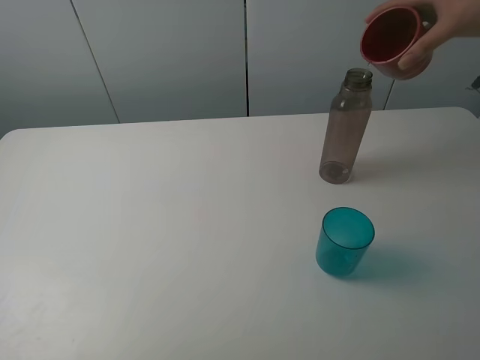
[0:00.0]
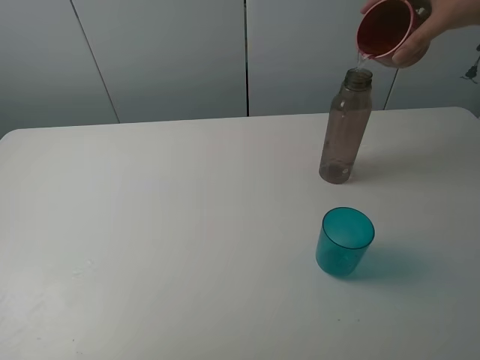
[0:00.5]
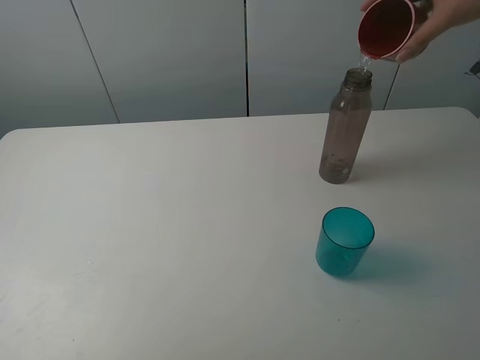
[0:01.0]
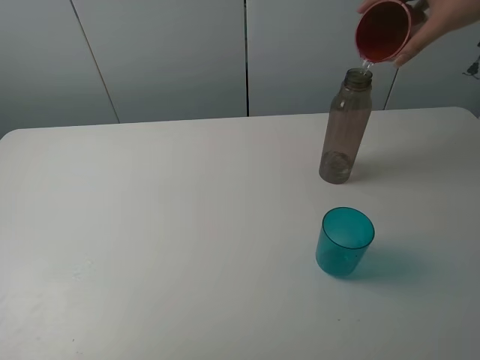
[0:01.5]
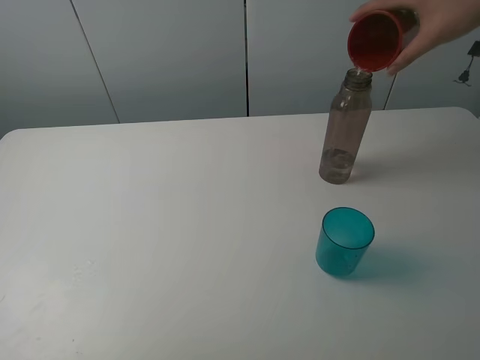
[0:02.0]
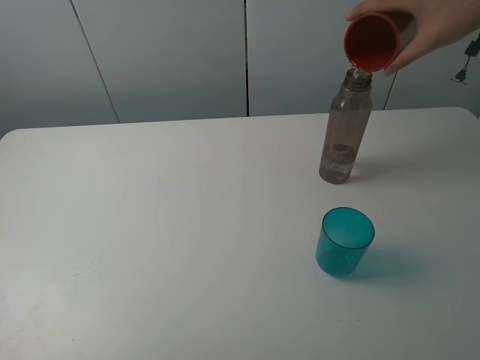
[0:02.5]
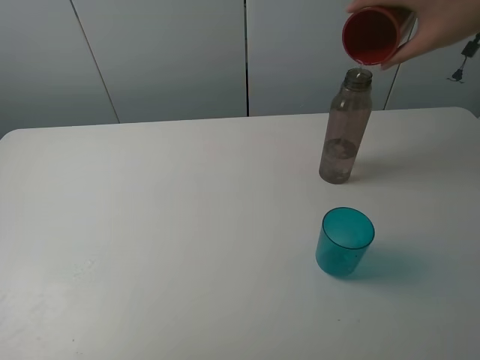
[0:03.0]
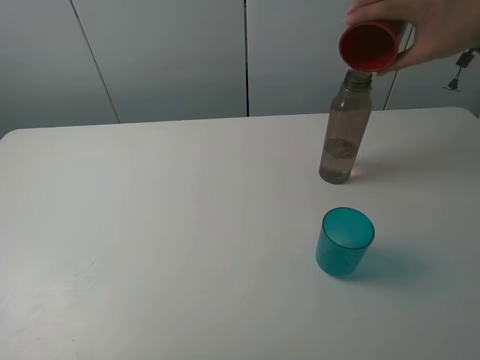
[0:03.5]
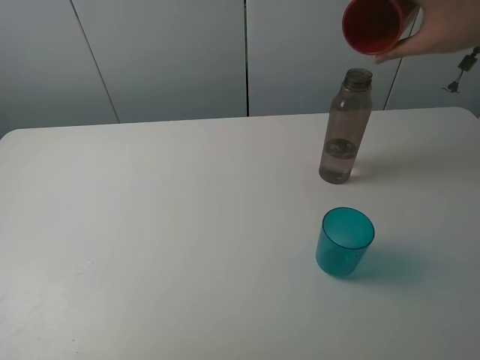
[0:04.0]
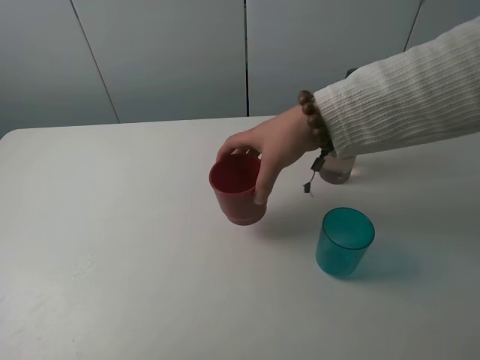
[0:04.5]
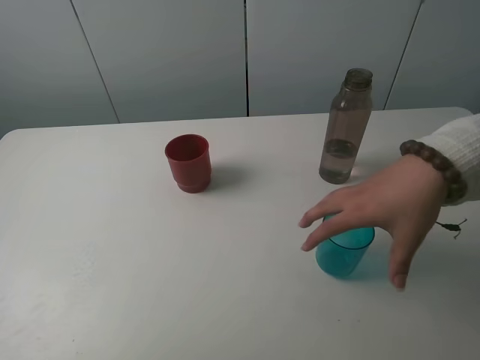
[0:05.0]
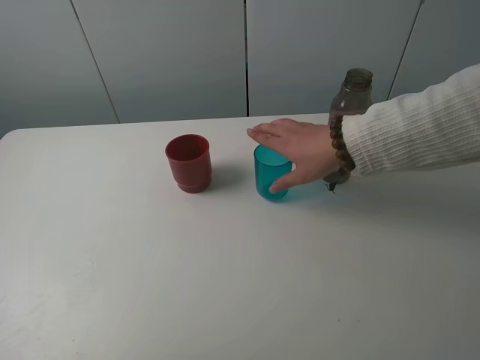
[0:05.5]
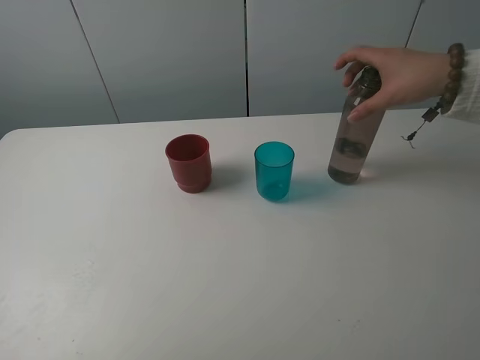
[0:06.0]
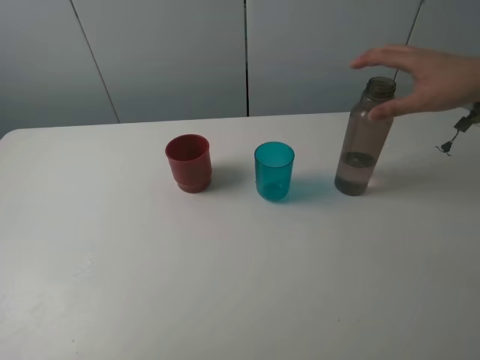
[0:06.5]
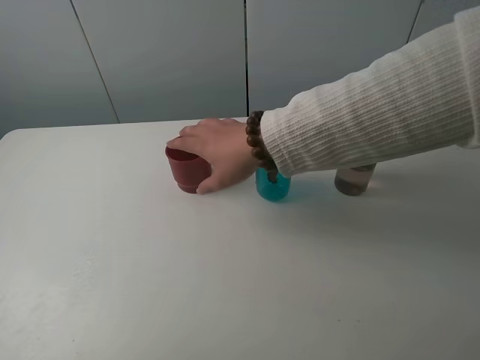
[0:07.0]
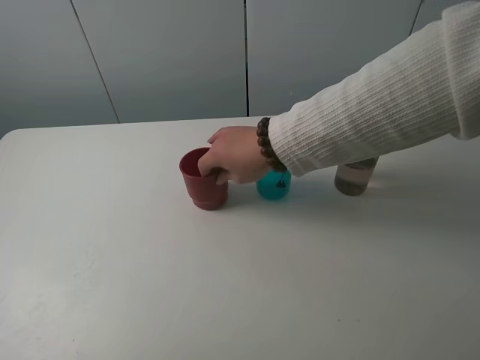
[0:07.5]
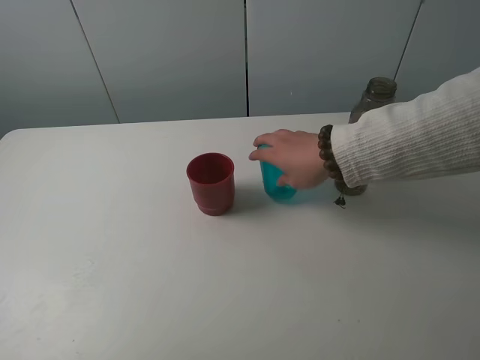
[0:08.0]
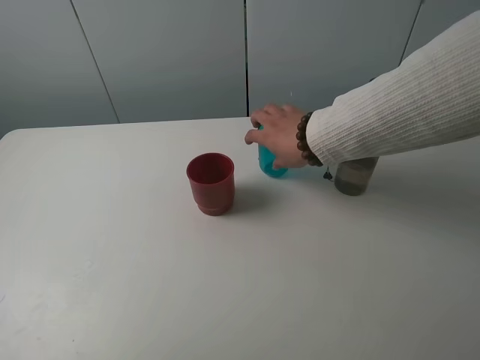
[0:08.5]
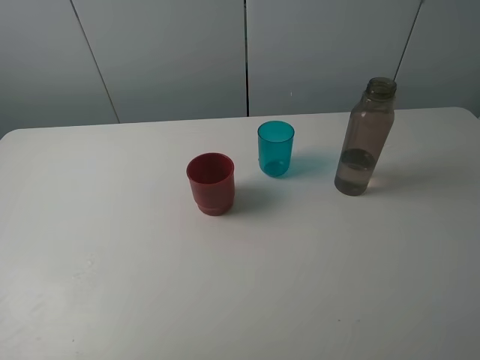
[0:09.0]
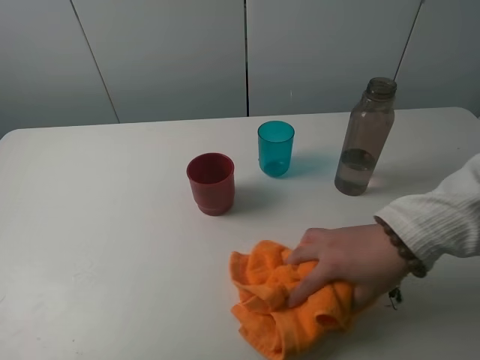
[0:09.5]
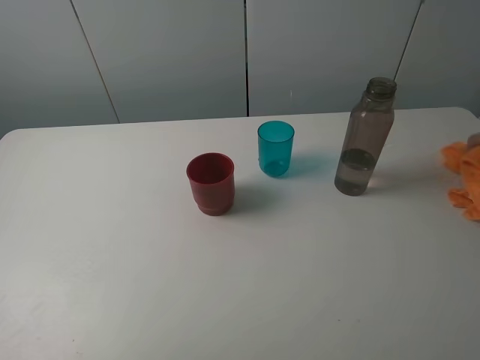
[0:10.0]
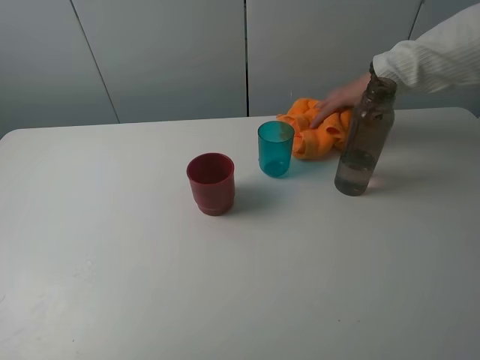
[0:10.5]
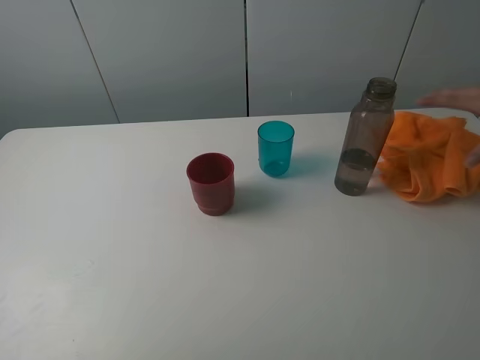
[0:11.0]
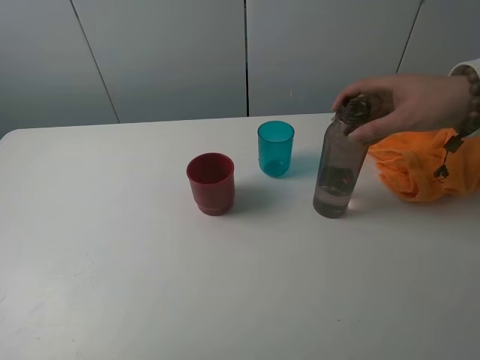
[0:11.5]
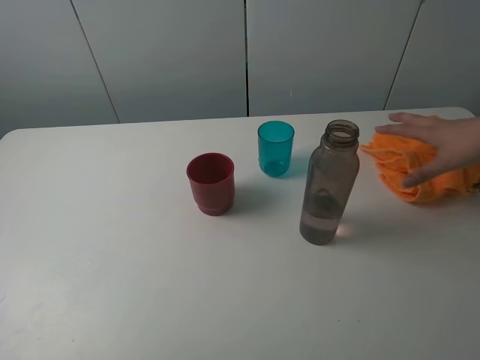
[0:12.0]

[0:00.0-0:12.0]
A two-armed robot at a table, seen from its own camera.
Task of the whole recording: pick up the bottle and pour water into the cup, then pick up the cup containing water and pour it into another cup.
0:00.0 to 0:12.0: Neither gripper changes place.

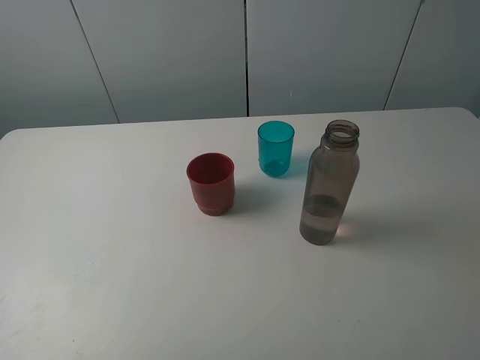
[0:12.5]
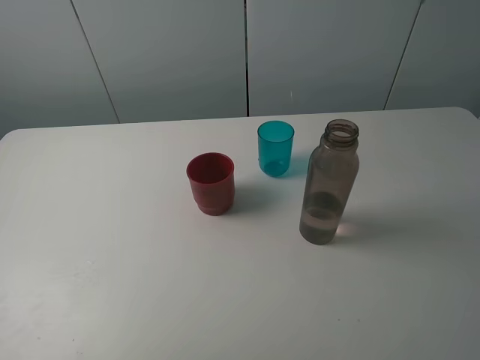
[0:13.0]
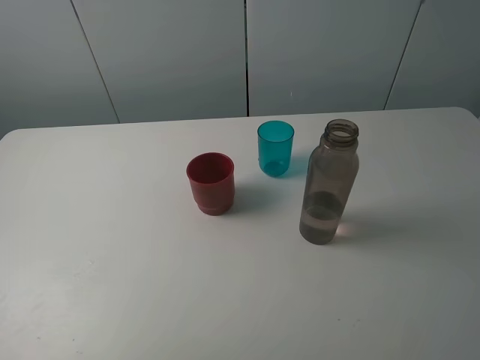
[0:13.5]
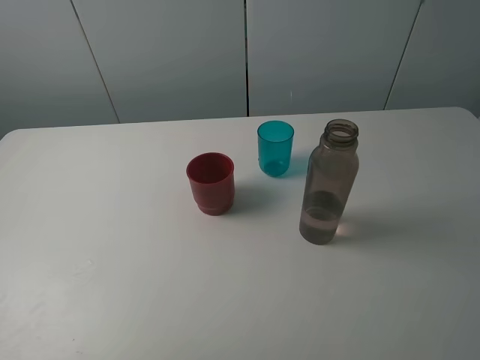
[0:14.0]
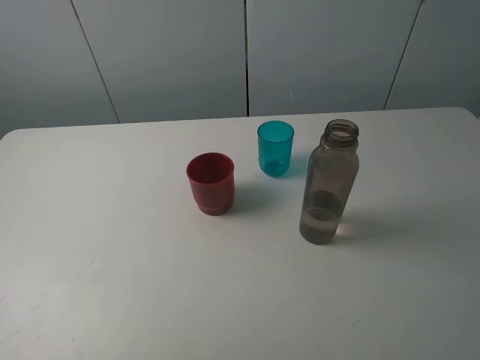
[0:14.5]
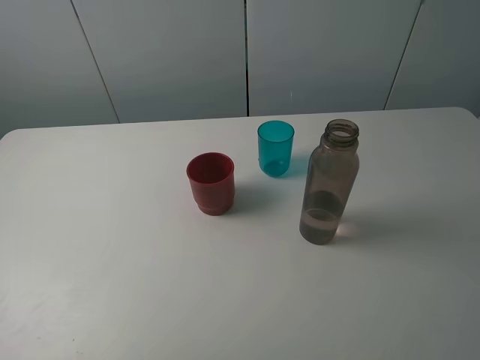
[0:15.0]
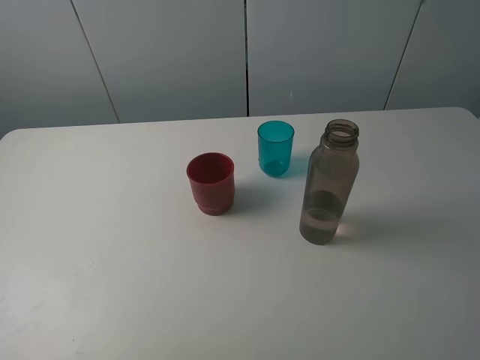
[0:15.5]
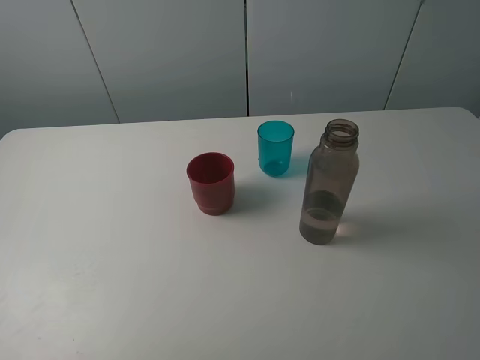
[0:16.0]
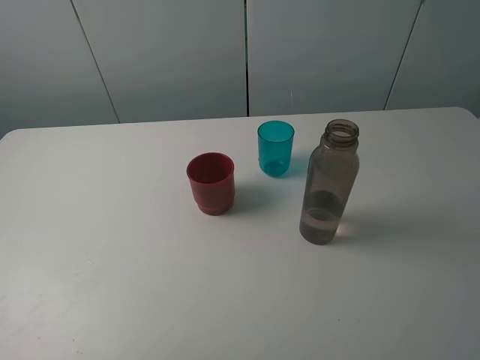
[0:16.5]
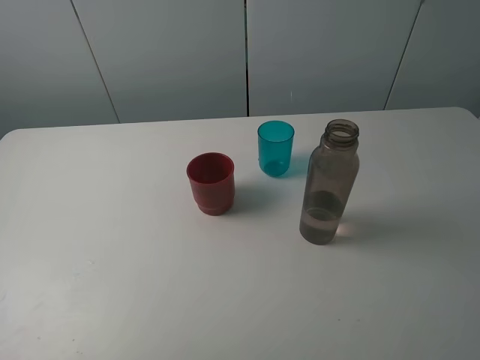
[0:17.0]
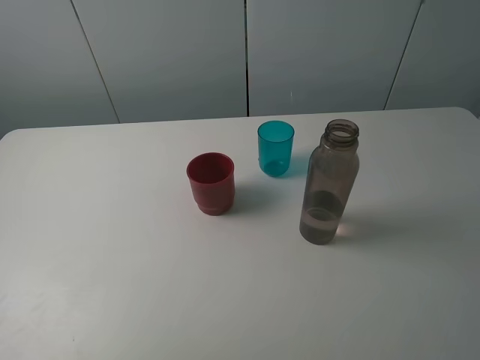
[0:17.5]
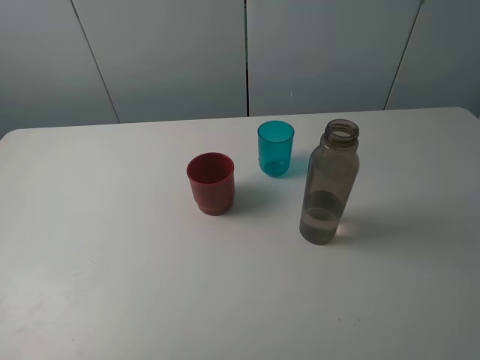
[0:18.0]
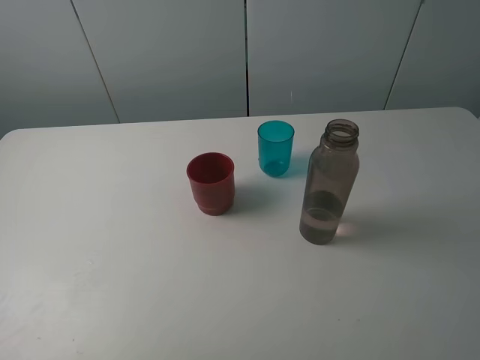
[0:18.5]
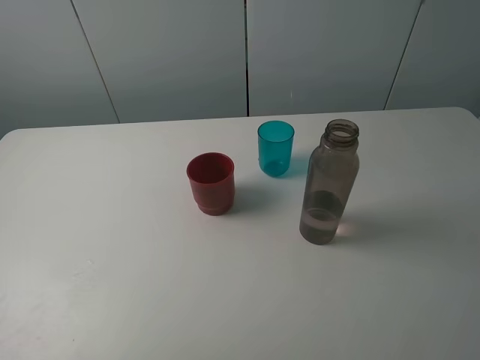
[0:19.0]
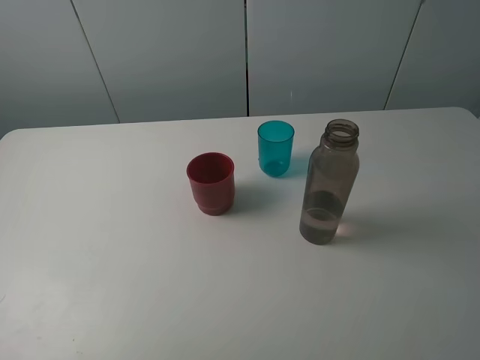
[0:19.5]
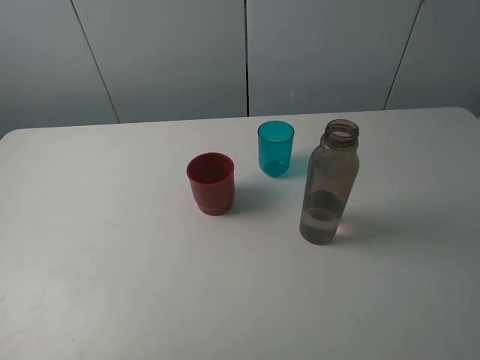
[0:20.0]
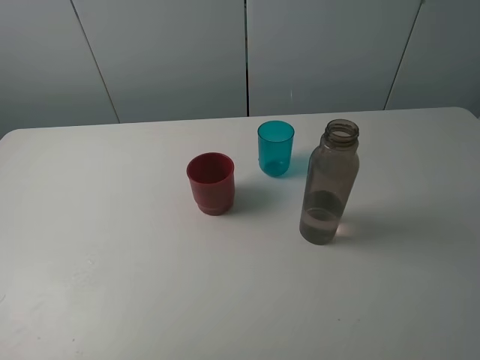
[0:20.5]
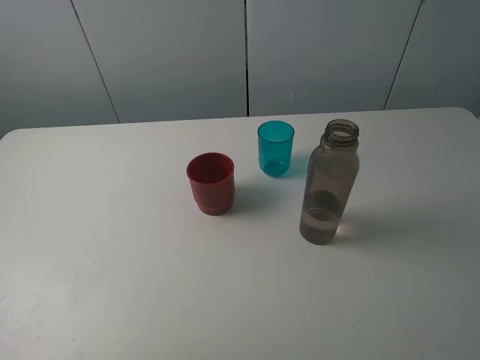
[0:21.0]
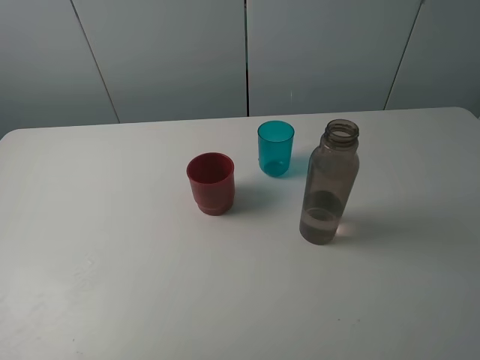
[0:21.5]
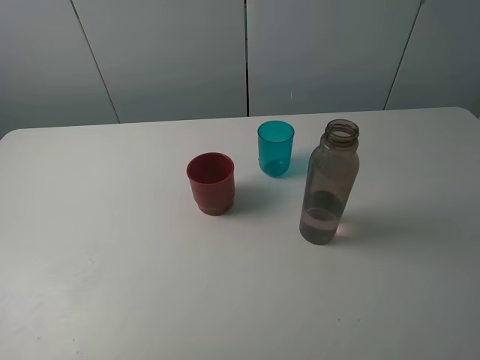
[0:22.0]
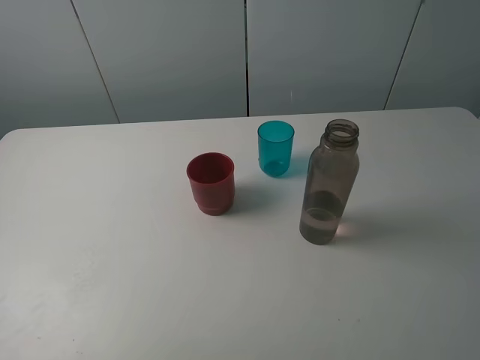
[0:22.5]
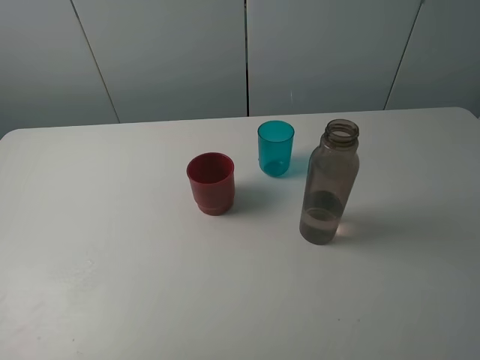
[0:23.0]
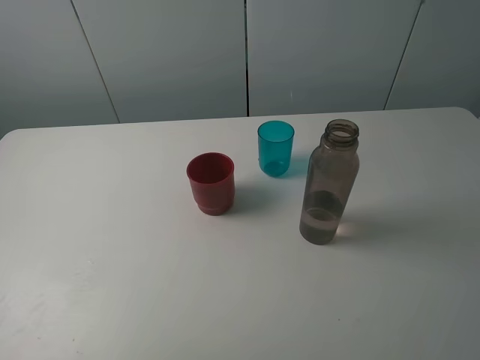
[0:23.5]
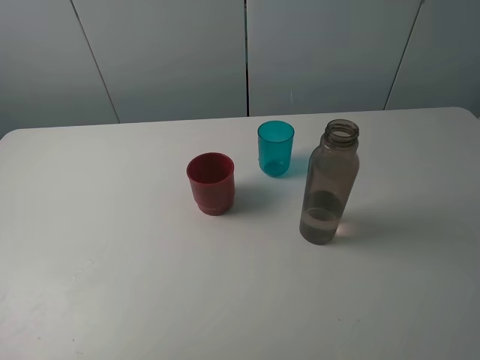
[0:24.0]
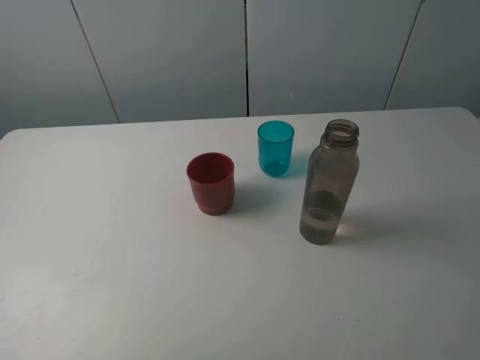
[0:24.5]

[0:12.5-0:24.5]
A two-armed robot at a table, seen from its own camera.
Task of the whole recording: pick up the bottle and pour water into the cup, then pick up the cup containing water and pour it into another cup.
0:12.5 to 0:24.5: Both grippers stay about where they are.

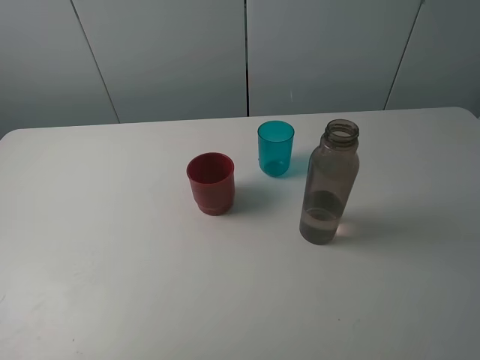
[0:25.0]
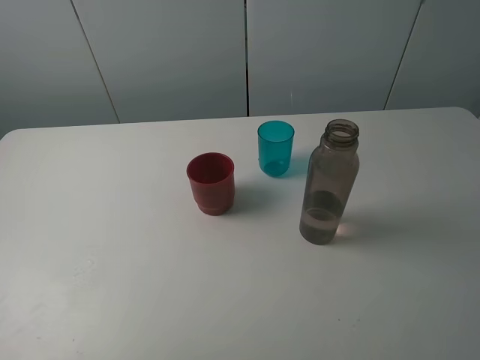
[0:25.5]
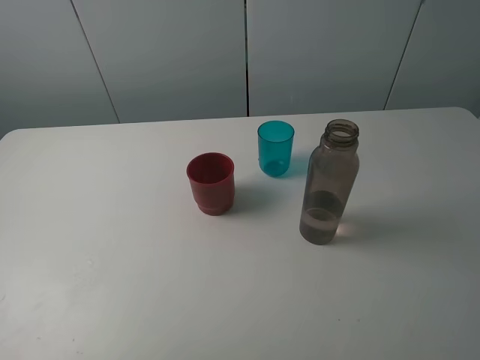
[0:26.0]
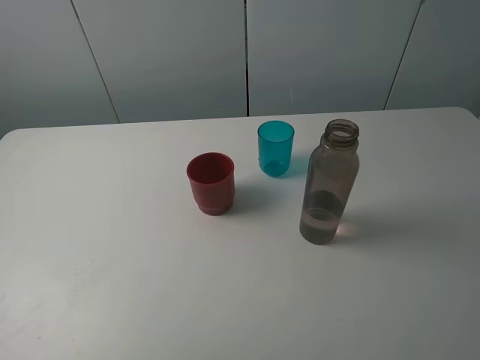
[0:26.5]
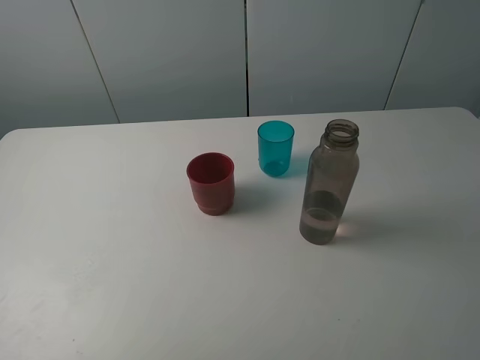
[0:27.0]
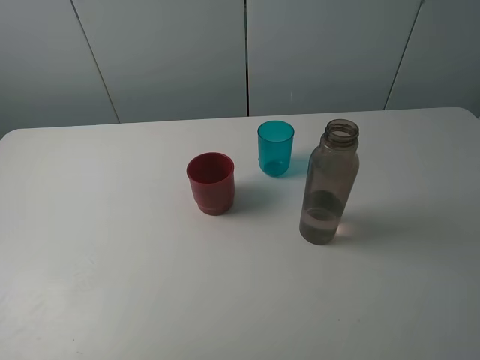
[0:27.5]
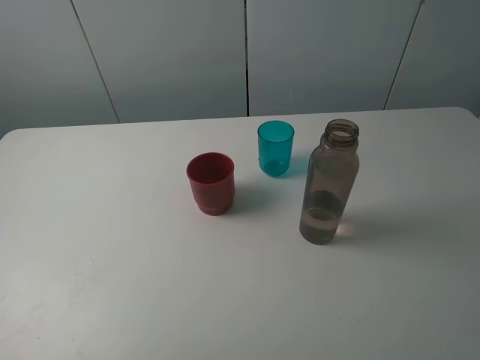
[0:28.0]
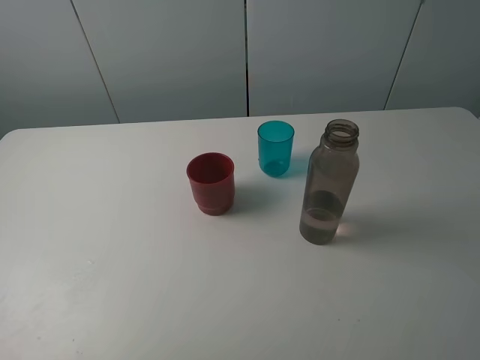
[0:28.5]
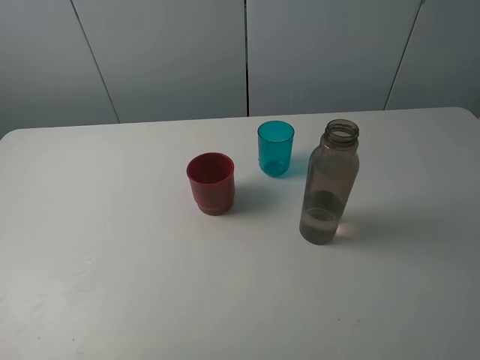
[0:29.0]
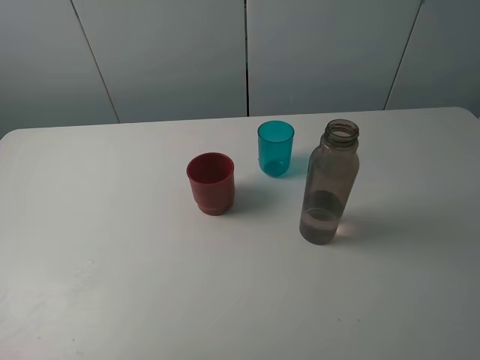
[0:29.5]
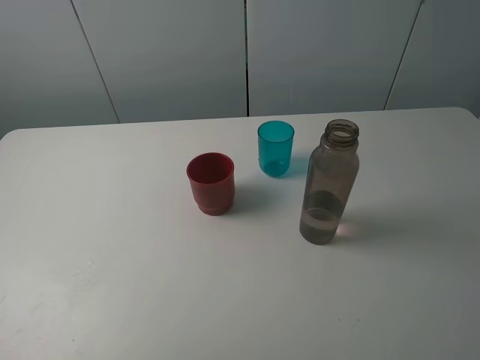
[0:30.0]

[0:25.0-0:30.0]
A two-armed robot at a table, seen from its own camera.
Task of the whole recording: pick up the bottle and pour water into the cup, then pick up the cup containing water and pour it into another cup.
0:27.5 to 0:30.0: Neither gripper changes place.
